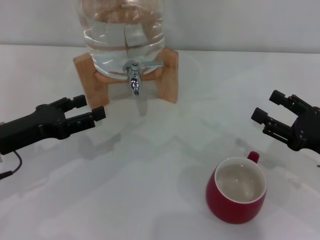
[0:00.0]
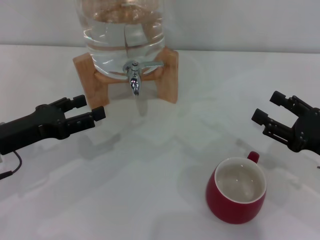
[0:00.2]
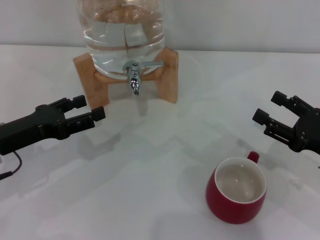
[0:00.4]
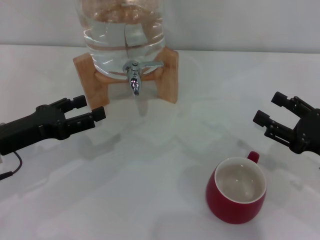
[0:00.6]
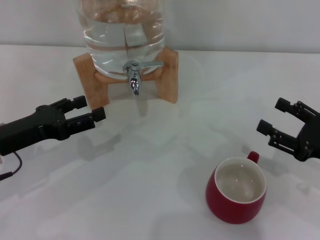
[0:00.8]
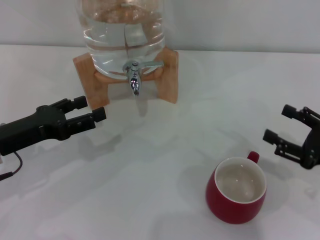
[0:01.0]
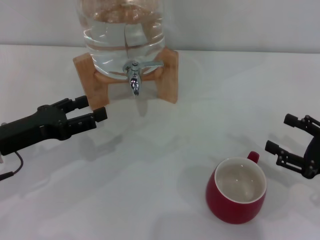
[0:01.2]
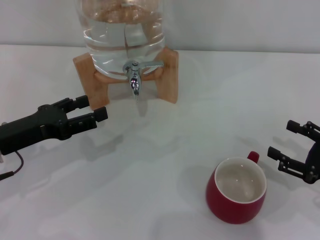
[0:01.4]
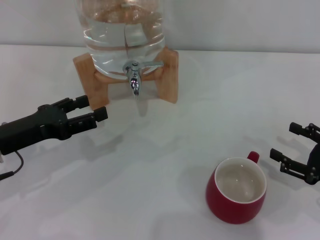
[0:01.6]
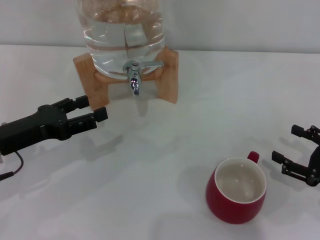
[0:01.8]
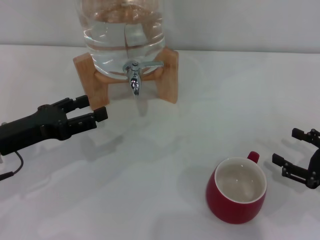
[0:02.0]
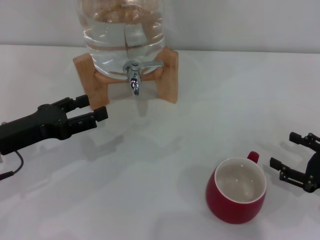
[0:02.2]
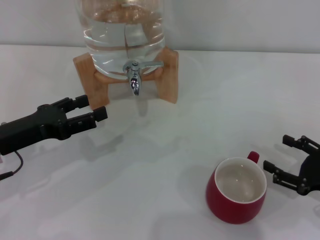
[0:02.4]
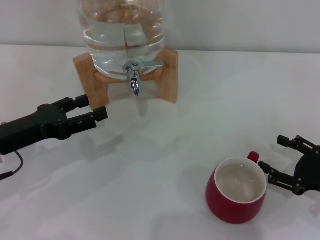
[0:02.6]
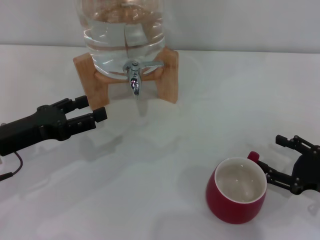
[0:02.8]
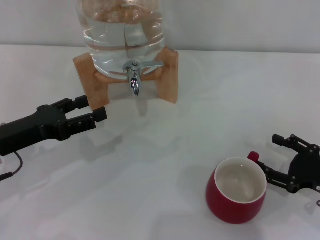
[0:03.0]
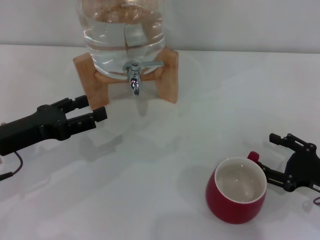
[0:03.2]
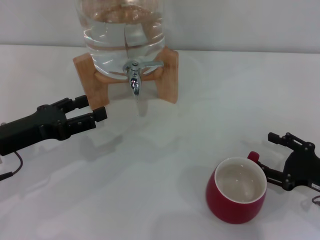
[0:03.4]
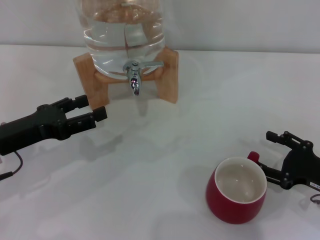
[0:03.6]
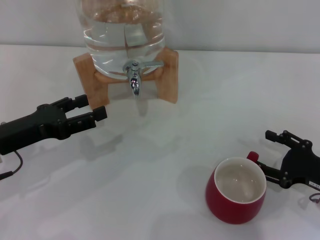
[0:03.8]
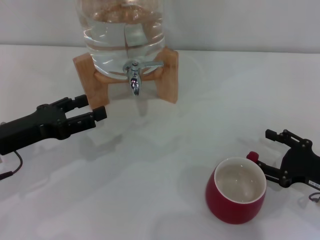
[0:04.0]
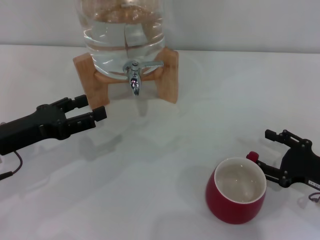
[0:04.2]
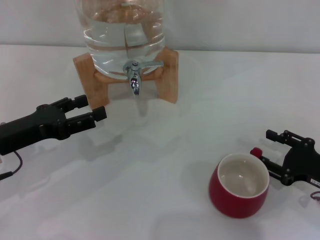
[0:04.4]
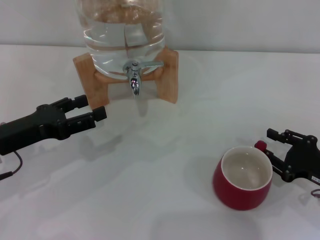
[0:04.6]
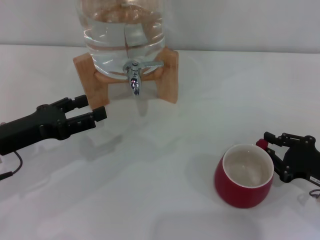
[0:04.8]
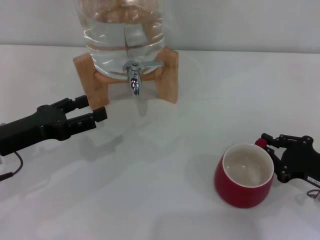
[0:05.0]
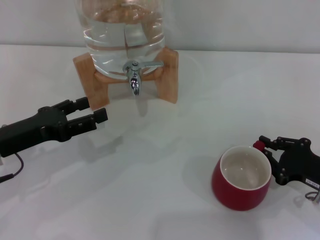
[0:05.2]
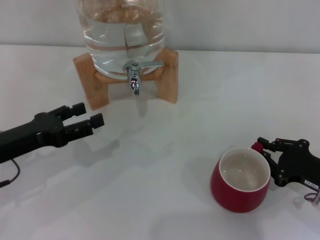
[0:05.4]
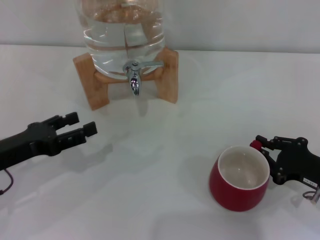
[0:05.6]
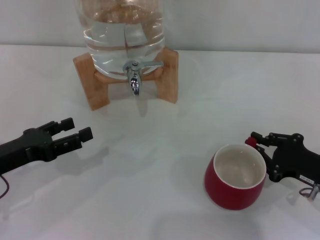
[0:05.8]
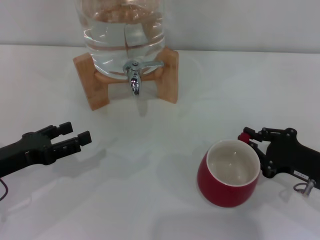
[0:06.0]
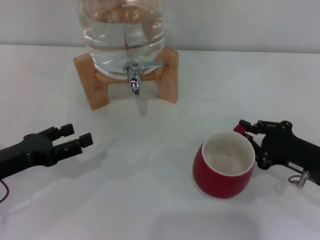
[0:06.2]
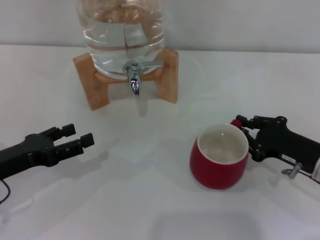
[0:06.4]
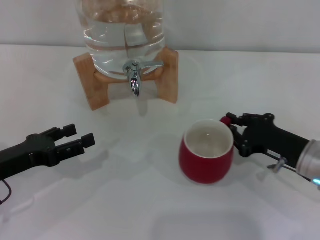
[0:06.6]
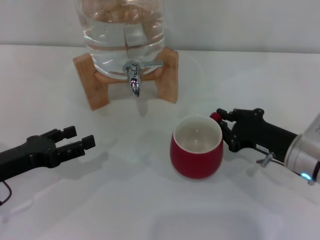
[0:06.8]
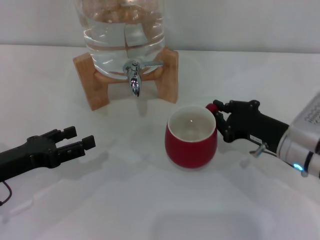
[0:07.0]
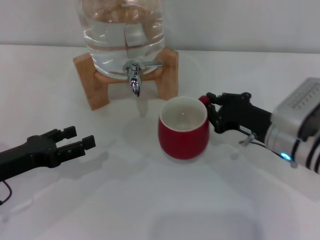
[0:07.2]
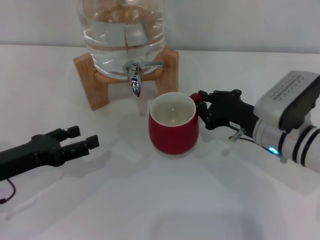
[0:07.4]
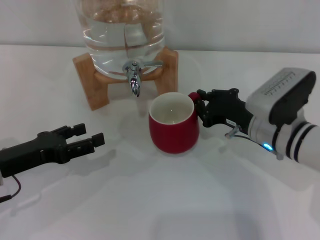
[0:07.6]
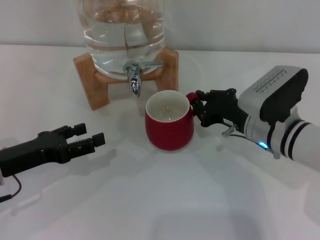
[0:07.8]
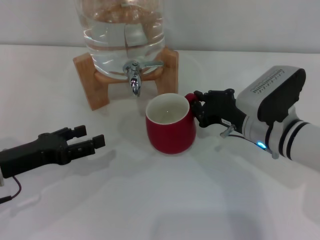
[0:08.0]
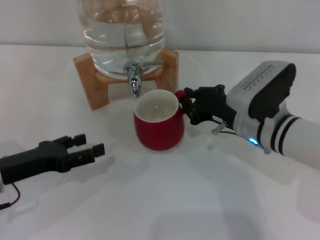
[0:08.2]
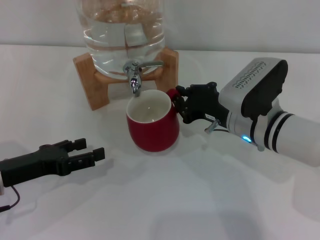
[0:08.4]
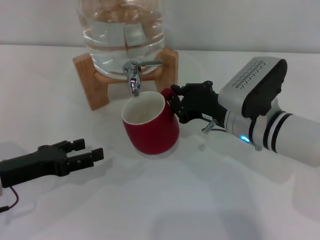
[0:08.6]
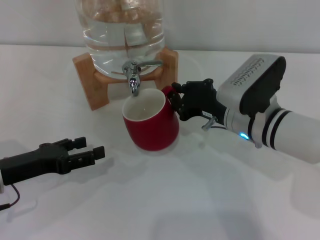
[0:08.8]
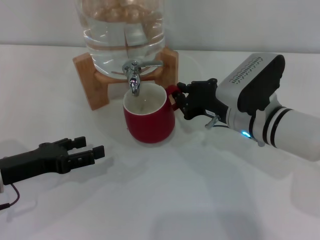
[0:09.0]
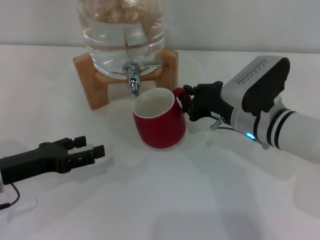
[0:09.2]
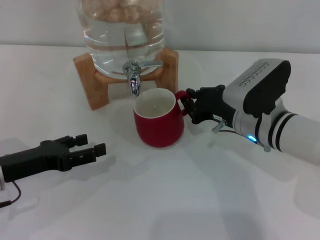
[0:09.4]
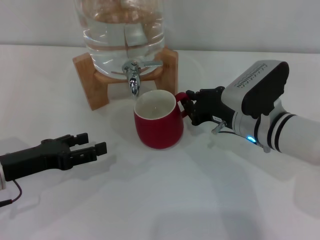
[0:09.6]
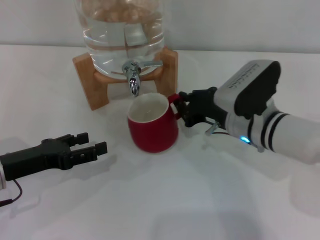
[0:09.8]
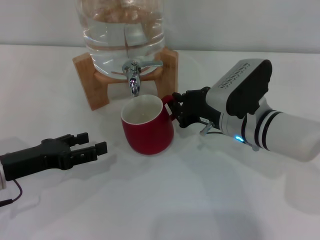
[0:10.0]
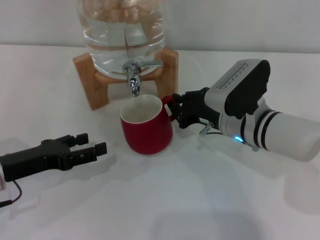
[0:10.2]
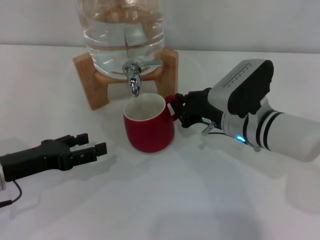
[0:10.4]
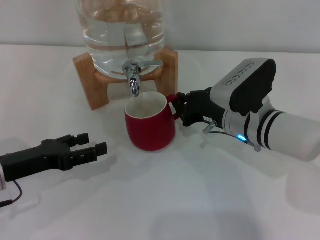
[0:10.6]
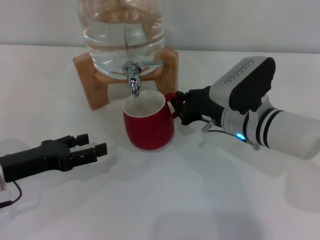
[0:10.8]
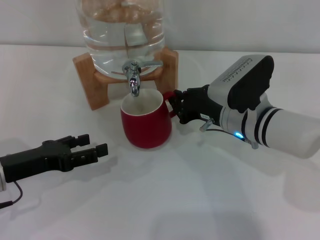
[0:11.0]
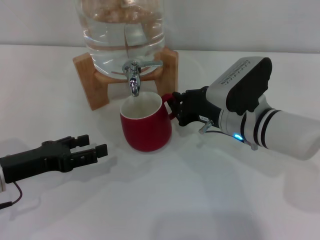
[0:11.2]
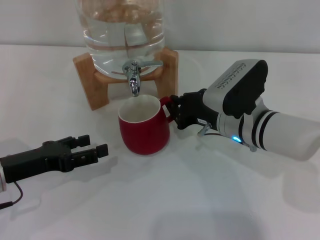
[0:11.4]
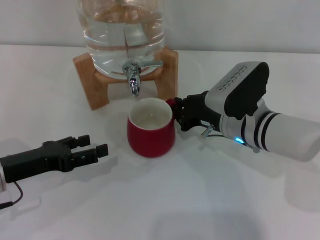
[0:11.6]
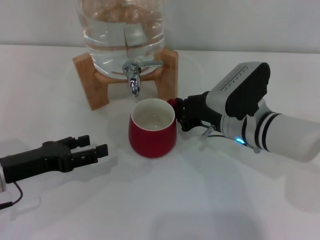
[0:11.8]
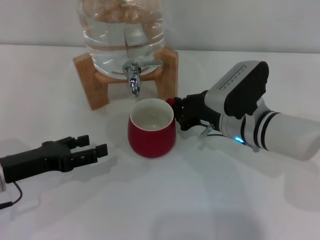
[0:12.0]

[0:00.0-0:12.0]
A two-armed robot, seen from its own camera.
Task of the whole recording: the right gripper pick up the red cup and place it horizontally under the faucet, the left gripper turn on the faucet to fill the cup, and then turn off the faucet.
0:01.6 to 0:03.0: The grippers stay close to where they were, moving slightly.
0:03.0 to 0:04.4: Neither gripper changes place.
0:04.4 to 0:06.0: The right gripper closes its fingers.
0:06.0 to 0:07.6: The right gripper shifts some 15 cm to the left and forward.
0:07.6 to 0:10.4: There are only small adjustments of the grippers.
0:10.4 to 0:12.0: Both grippers stay about where they are.

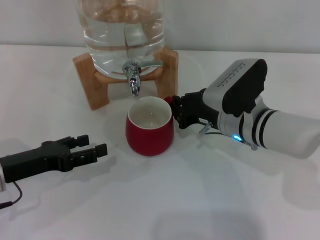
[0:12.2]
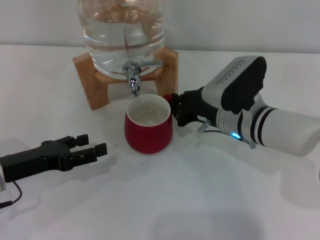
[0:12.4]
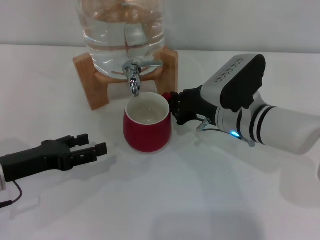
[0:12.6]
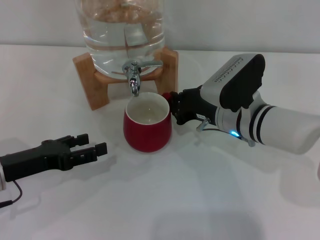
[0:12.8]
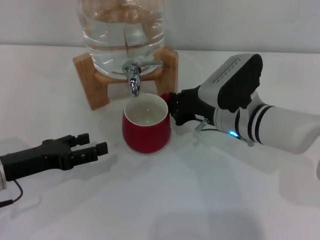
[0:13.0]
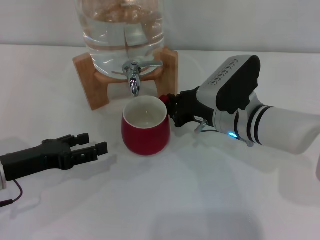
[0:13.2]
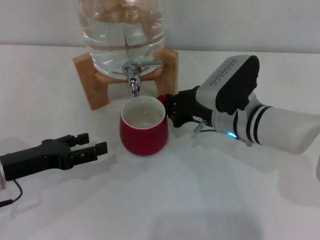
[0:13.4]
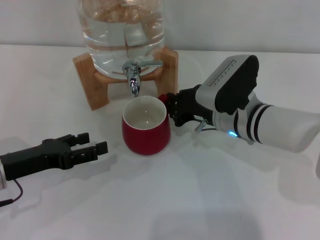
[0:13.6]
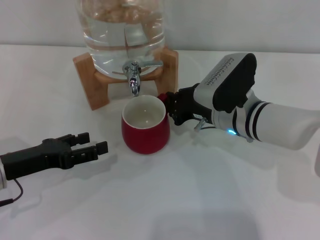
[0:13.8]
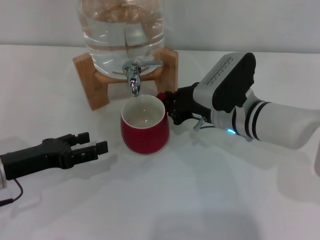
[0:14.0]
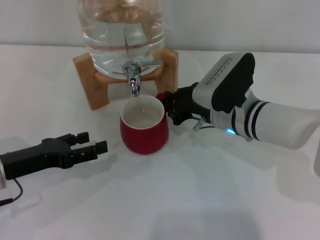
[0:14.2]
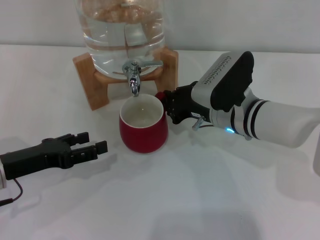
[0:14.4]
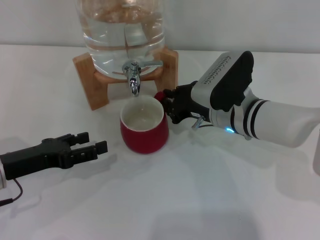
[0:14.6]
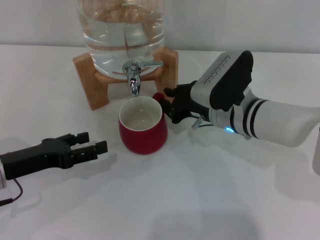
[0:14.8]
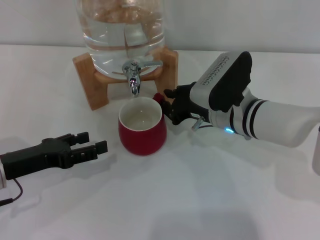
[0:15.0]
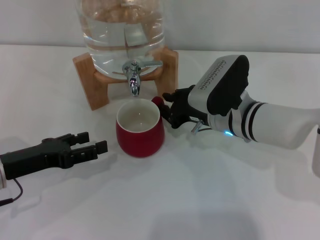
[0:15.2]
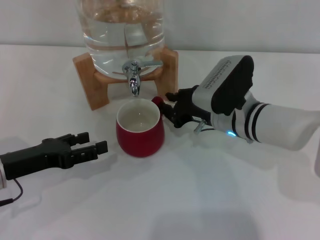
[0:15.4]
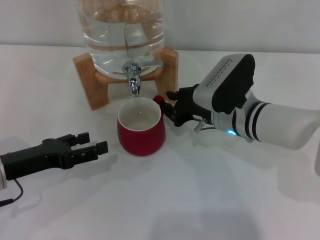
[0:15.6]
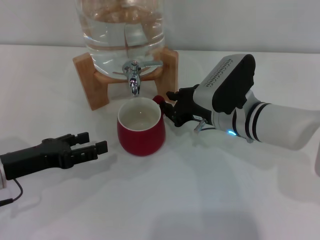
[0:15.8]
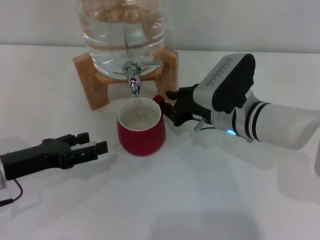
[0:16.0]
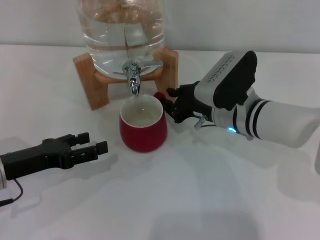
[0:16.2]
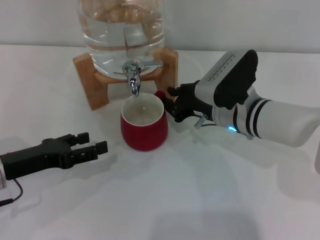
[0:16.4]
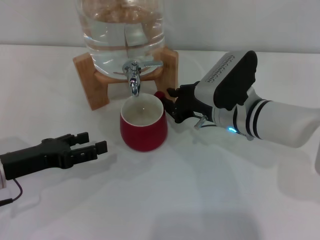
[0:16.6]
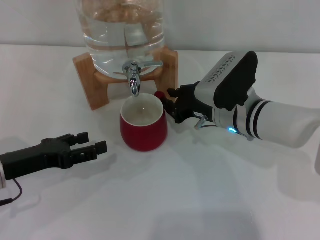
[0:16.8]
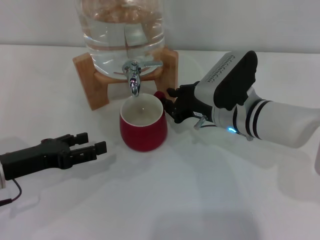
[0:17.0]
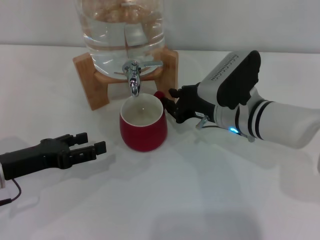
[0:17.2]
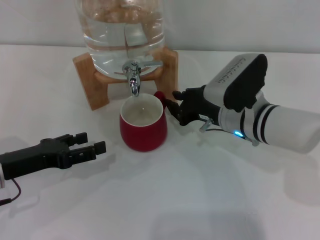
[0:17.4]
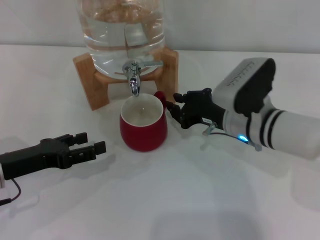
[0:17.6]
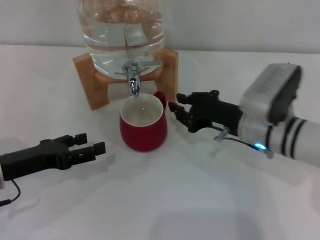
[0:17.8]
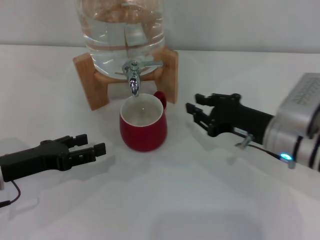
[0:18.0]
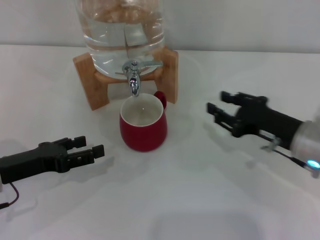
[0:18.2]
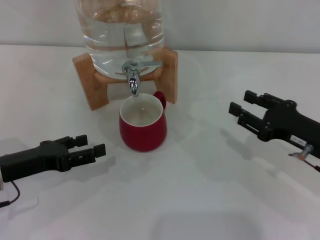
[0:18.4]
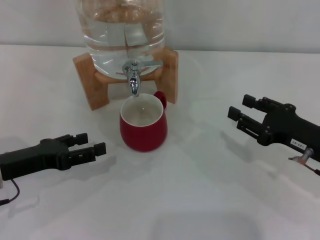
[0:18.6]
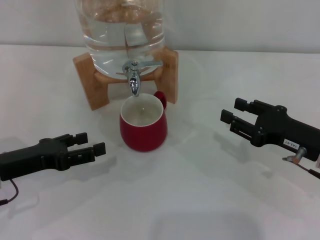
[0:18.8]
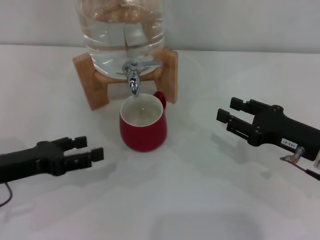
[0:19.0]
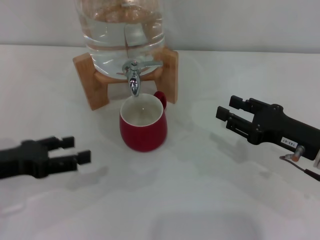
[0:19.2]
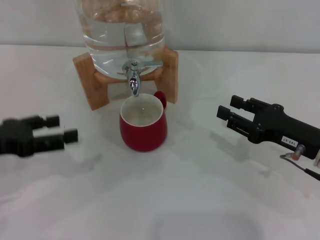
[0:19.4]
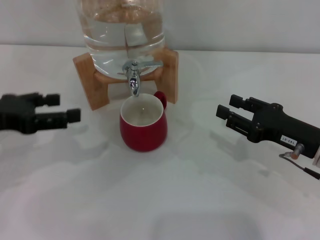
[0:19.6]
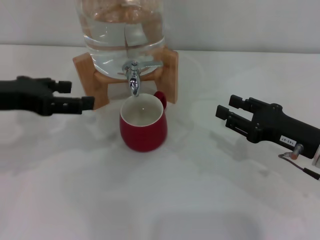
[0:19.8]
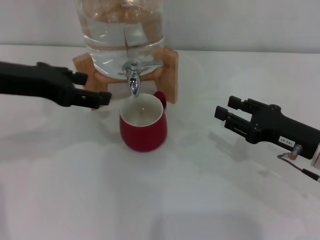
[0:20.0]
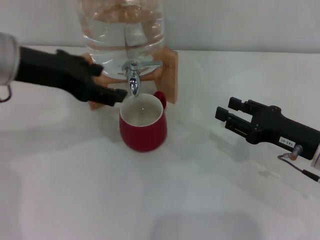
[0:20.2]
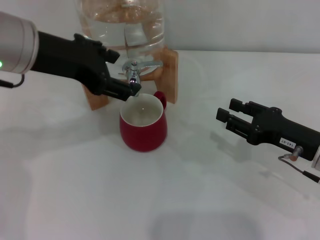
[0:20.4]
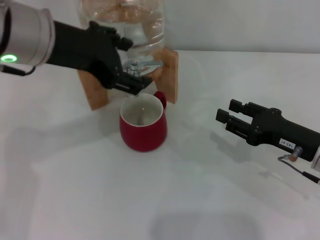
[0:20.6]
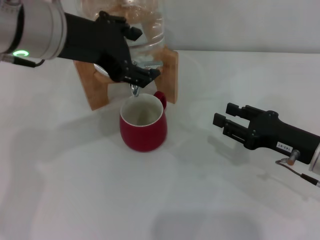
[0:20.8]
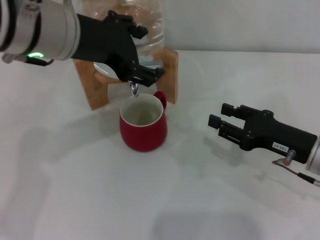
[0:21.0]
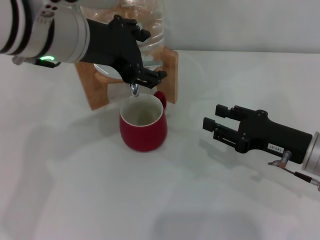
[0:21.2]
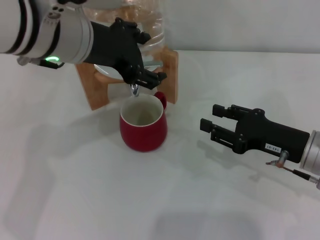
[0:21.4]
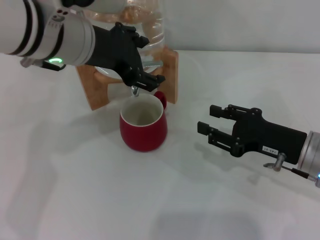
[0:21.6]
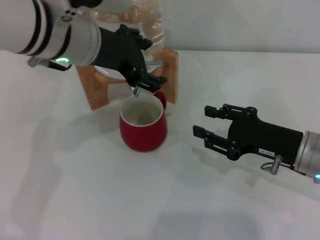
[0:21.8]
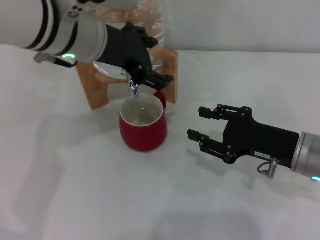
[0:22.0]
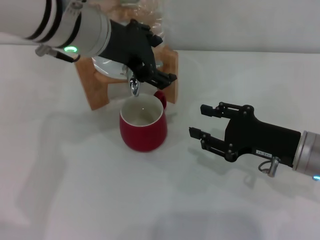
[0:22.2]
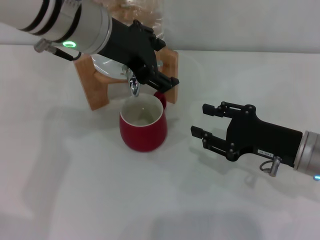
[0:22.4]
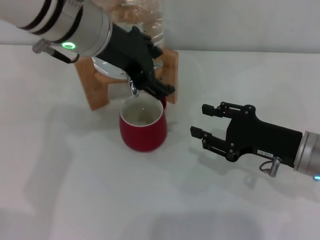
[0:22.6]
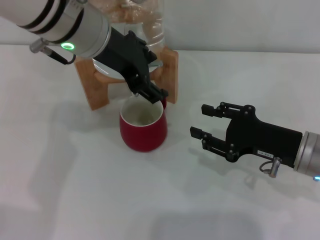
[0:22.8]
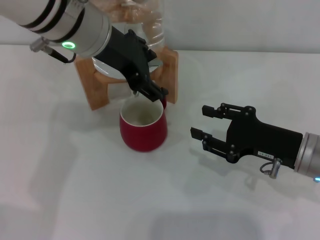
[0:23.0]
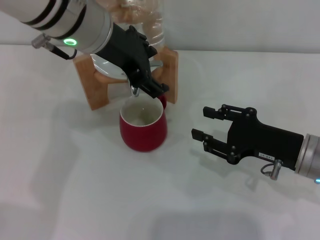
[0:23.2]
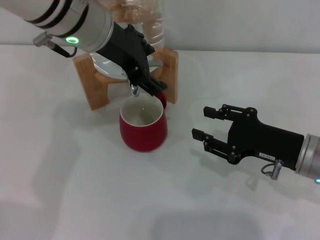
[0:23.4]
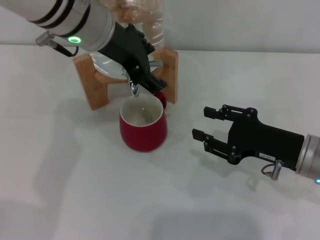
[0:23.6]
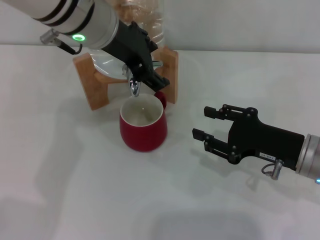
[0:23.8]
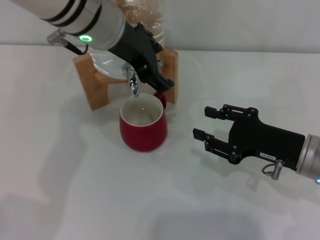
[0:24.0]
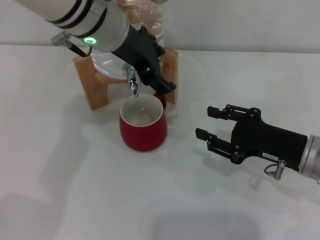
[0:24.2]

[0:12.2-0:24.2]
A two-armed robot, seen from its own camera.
Task of the whole recording: the right gripper pick up the red cup and place it horizontally under the faucet, the left gripper turn on the faucet to fill the cup, and then turn off the faucet.
Step, 0:12.2 to 0:17.8: Move the cup beneath the water dispenser nozzle with the right gripper.
0:12.2 to 0:13.8: Both grippers stay about where they are.
0:13.8 to 0:16.6: The two grippers keep their place.
0:16.6 to 0:18.2: The right gripper moves to the right and backward, some 10 cm.
0:18.2 to 0:19.8: The left gripper shifts approximately 15 cm upward.
0:19.8 to 0:21.2: The left gripper travels to the right and upward by some 15 cm.
0:22.6 to 0:24.2: The grippers stay close to where they were, moving slightly.
